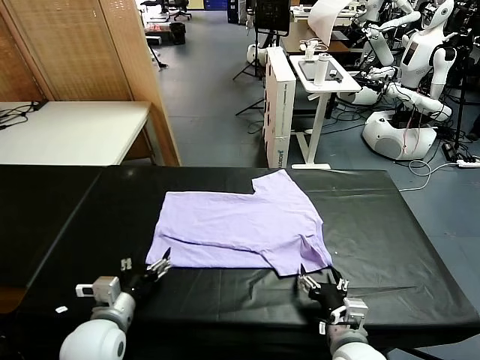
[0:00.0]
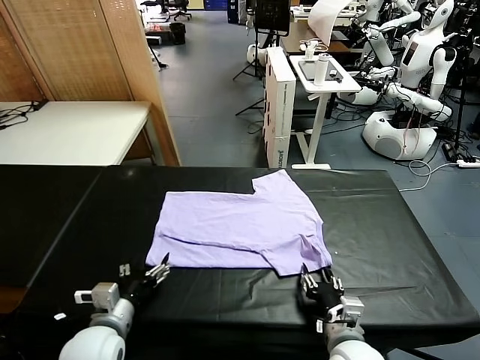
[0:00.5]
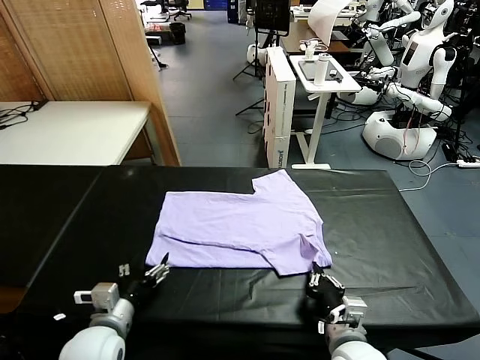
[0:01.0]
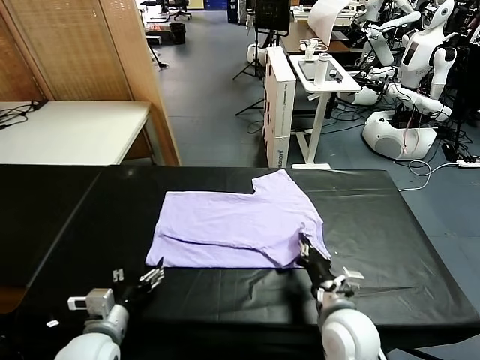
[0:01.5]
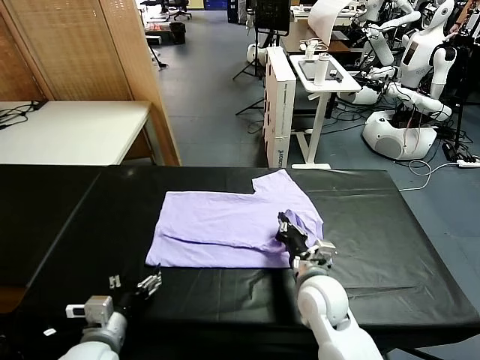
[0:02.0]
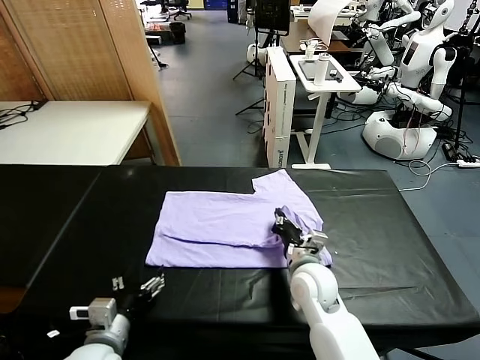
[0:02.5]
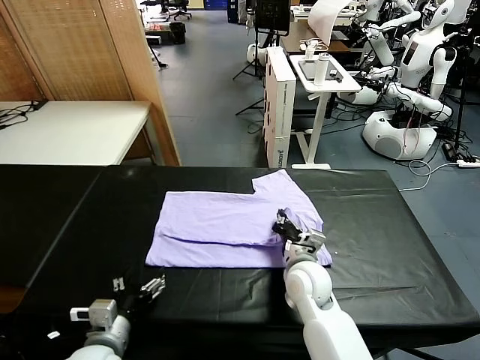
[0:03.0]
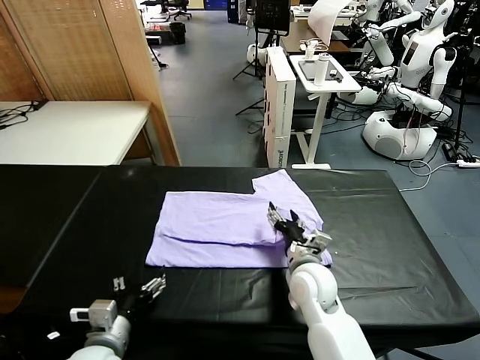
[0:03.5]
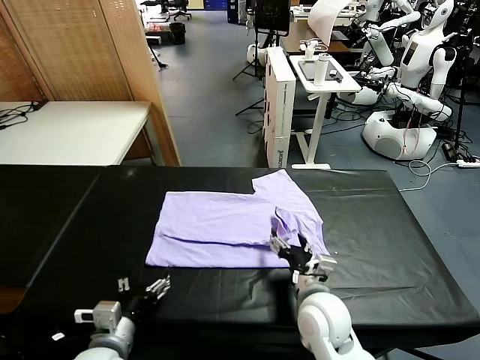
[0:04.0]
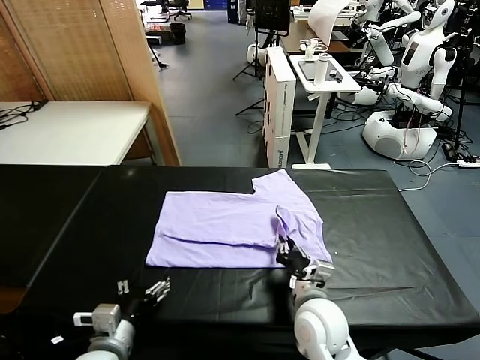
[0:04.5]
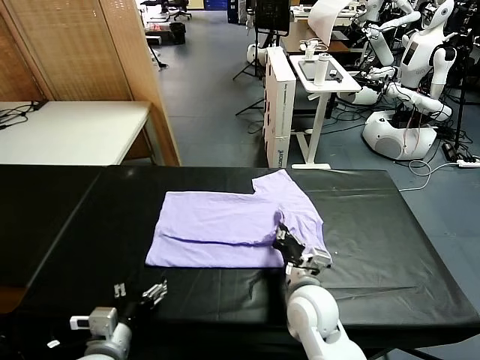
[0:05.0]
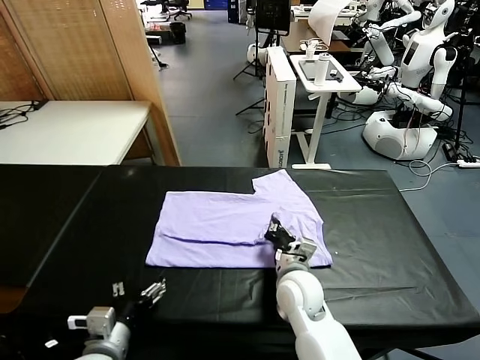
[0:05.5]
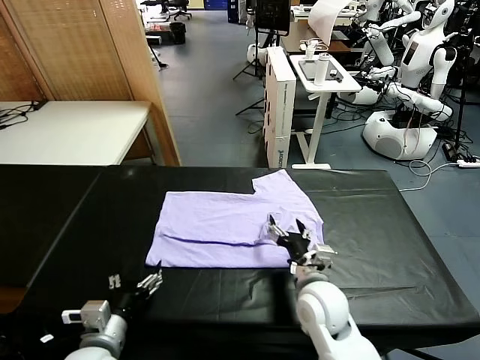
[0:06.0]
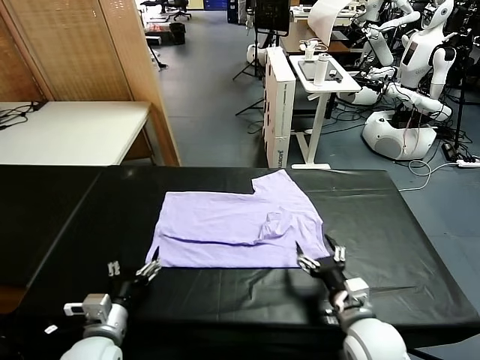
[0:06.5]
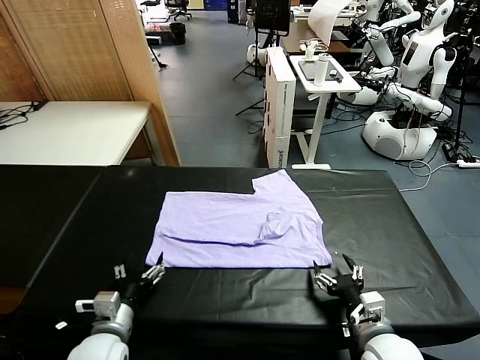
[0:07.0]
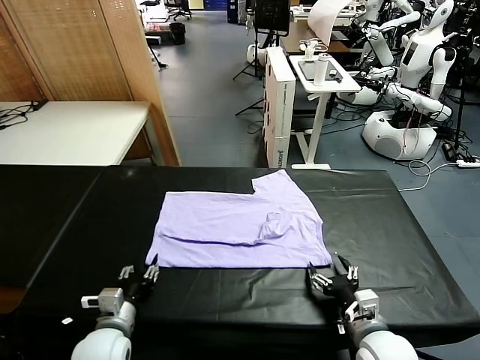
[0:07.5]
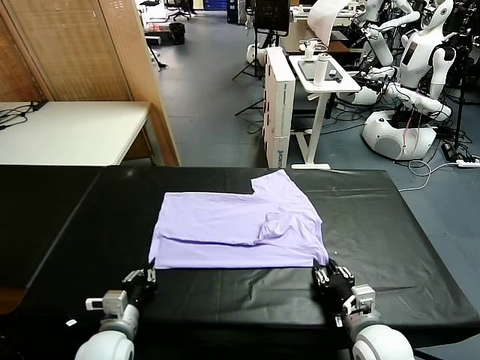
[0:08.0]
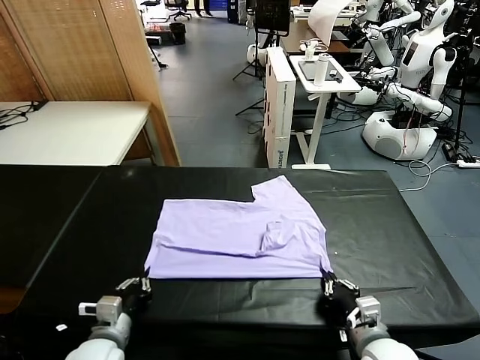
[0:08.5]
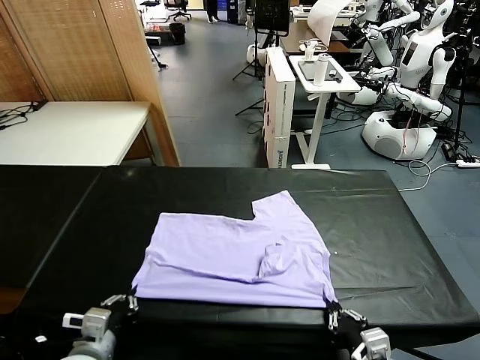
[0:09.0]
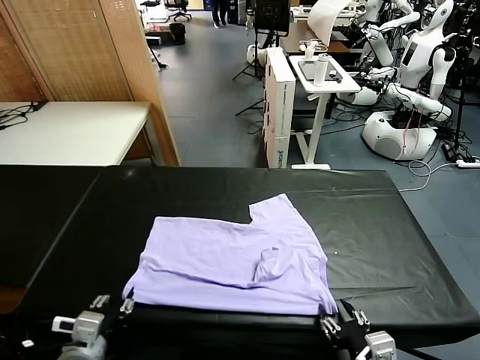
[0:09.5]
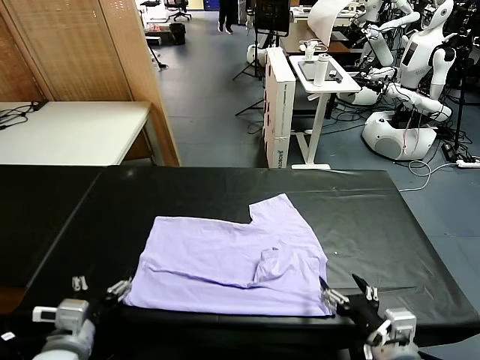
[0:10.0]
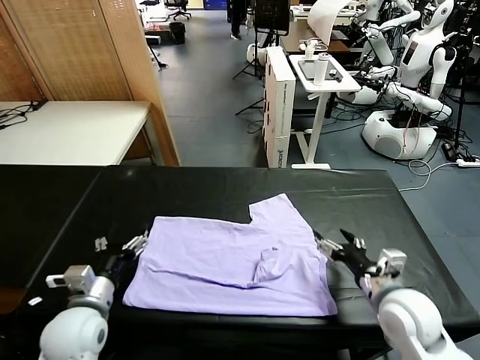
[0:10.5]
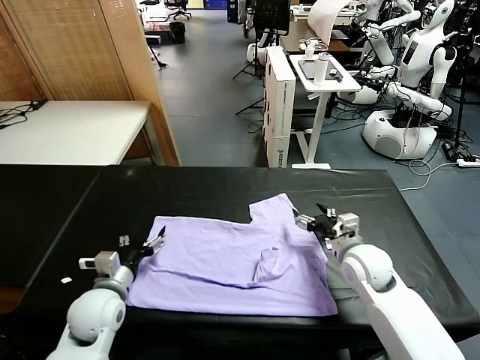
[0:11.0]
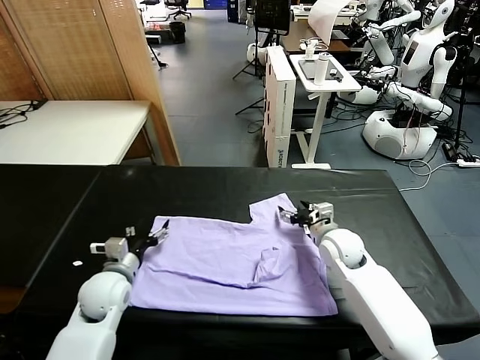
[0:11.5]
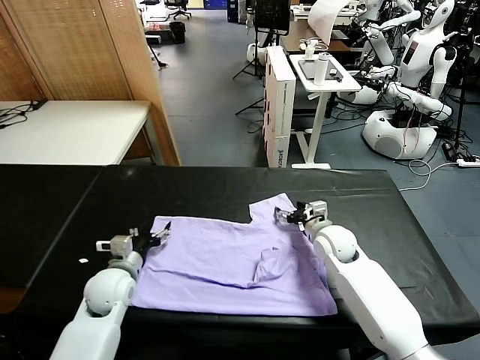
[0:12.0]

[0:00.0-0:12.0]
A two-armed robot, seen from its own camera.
Task of the whole recording: fold and organize the clothes.
Step, 0:00.0 to 0:06.0: use both grippers to drag the lower edge of the fabric forward and fold it over the upper edge.
Step, 0:06.5 to 0:09.5: Drag the clothes downward with both gripper.
0:00.0 to 0:02.0: The right gripper goes roughly 15 cm forward, and closes up.
0:02.0 to 0:04.0: The right gripper goes about 5 cm backward, and opens up.
0:04.0 to 0:06.0: The right gripper closes and opens again.
0:06.0 to 0:08.0: The left gripper moves downward, roughly 5 cm, and closes its fingers, while the right gripper travels to the right by roughly 5 cm, and closes its fingers.
0:08.0 to 0:10.0: The grippers both shift upward by approximately 10 cm. The right gripper travels backward and back again, roughly 10 cm each way, and opens its fingers. Meanwhile the left gripper opens its fingers.
0:10.0 to 0:12.0: The left gripper is displaced forward and downward by about 20 cm. Meanwhile the right gripper goes about 25 cm forward.

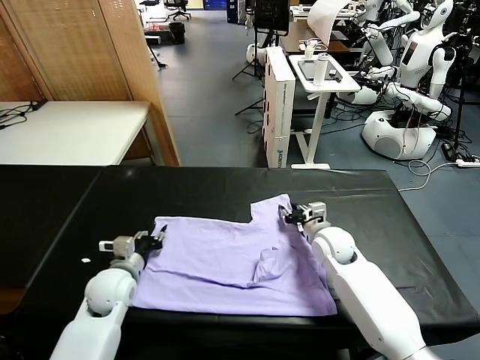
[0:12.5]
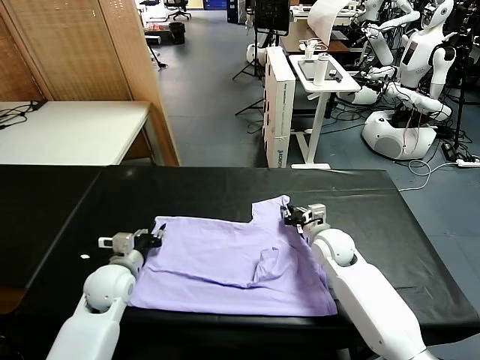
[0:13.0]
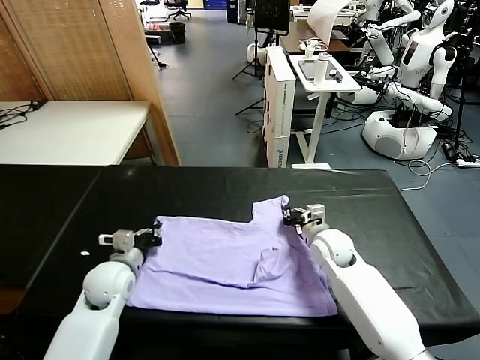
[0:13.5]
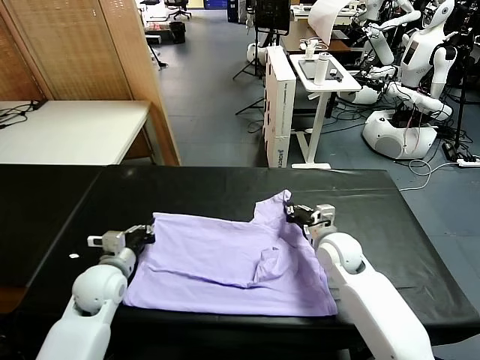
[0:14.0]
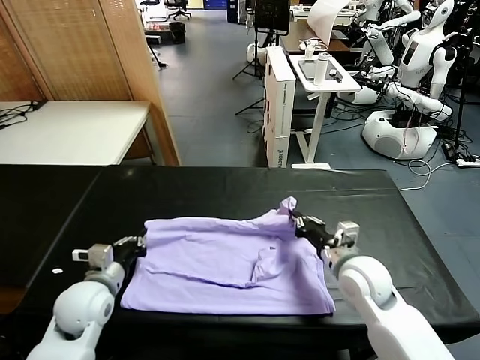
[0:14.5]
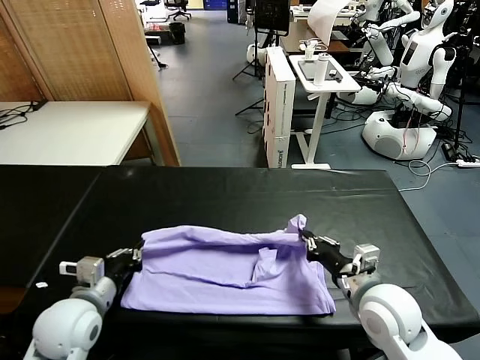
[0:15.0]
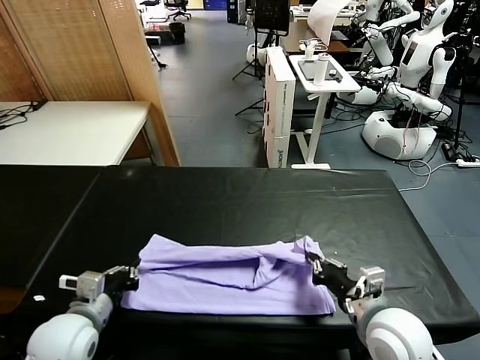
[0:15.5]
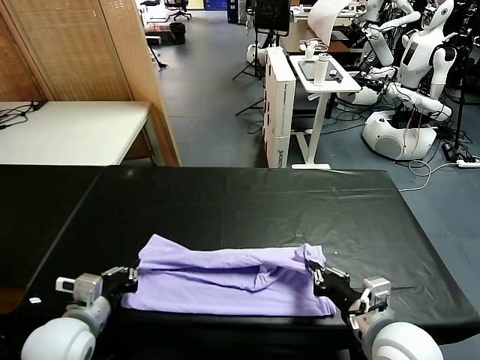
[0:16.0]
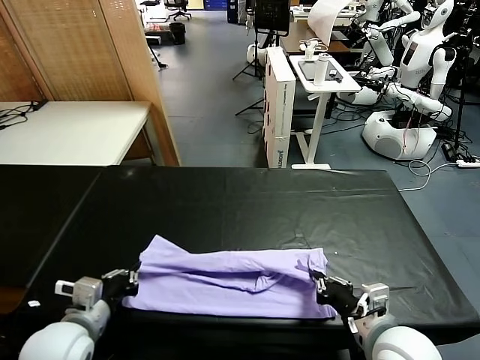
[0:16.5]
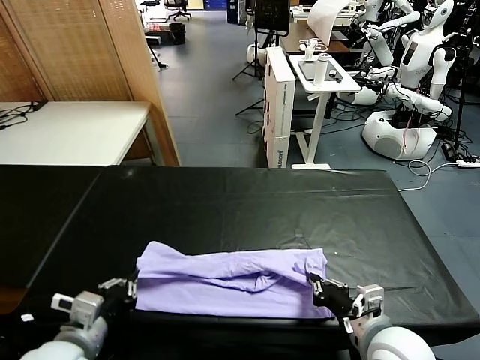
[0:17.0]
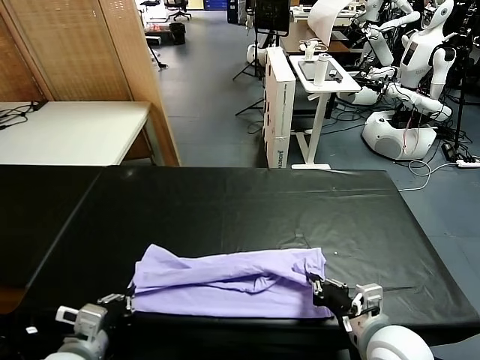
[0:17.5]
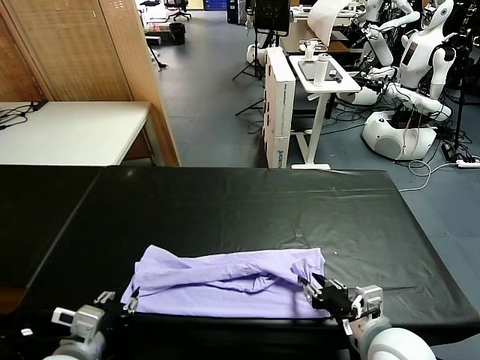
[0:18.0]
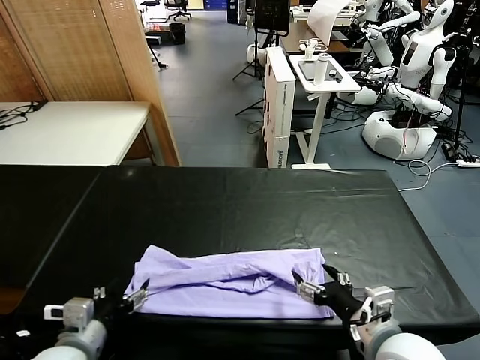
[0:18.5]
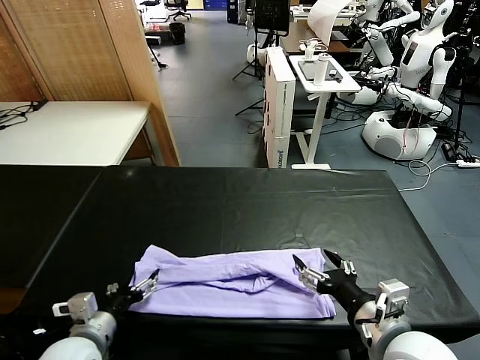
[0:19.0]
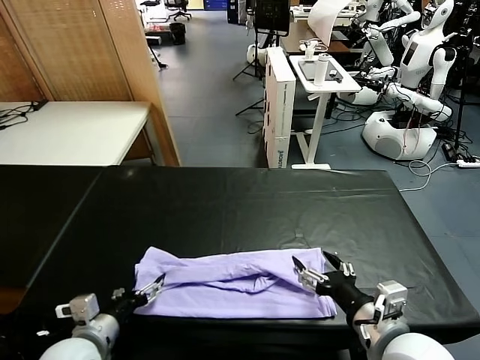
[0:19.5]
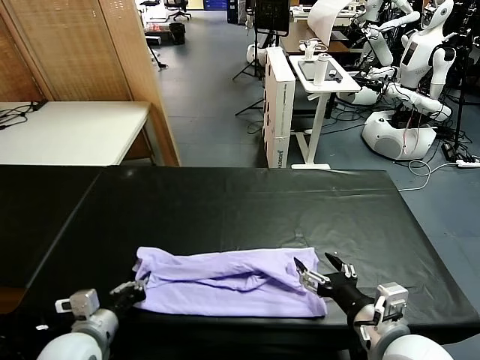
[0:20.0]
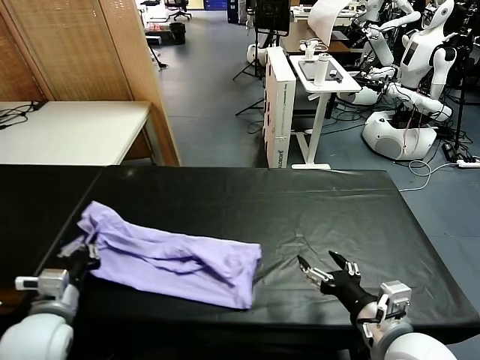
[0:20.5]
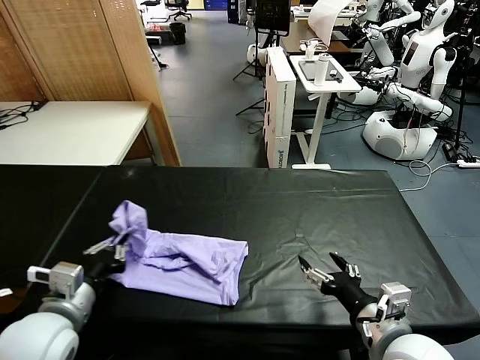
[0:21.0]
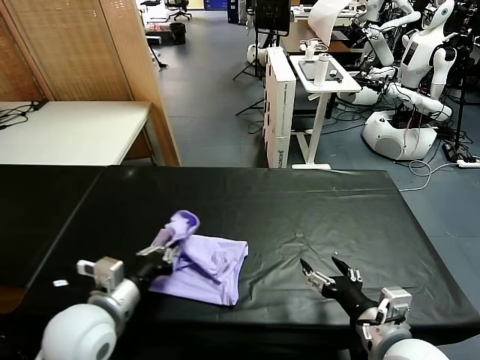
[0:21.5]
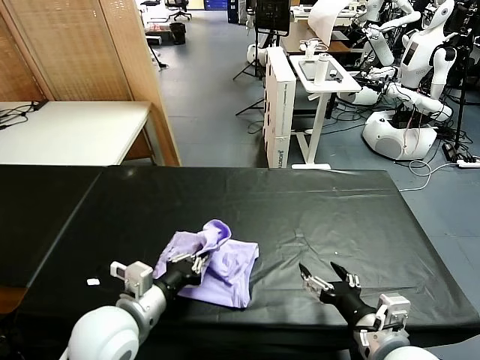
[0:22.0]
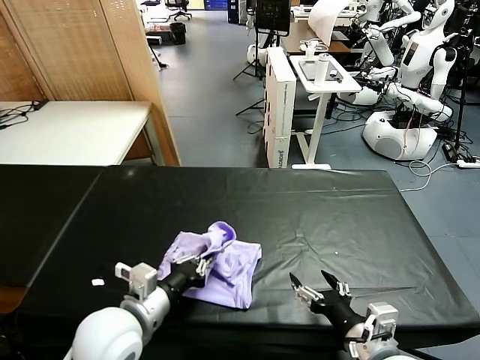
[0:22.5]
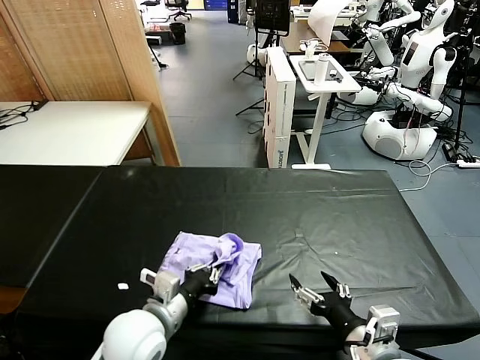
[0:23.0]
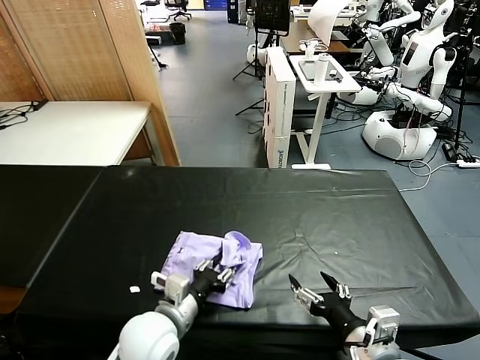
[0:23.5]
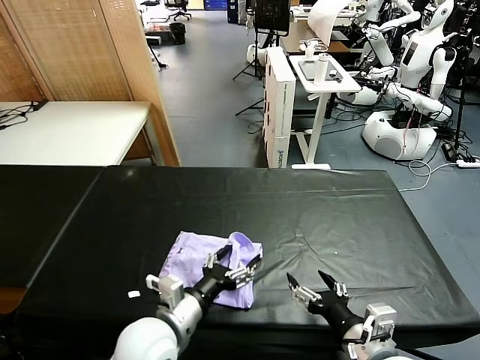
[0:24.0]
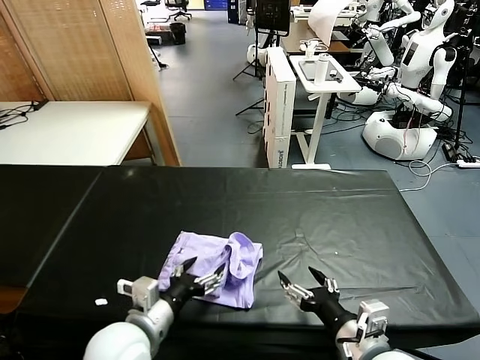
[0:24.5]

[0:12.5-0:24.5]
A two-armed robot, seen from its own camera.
Task of the whole recording: fold and organize the clothes.
Step, 0:14.0 to 0:18.0: use both grippers to drag the upper edge of the fabric backward and fold it over the lower edge.
Step, 0:18.5 to 0:20.0: use the left gripper to clamp the left edge of the fabric.
0:12.5 to 0:14.5: The left gripper heads backward, covering about 5 cm, and closes, while the right gripper is displaced backward and upward by approximately 15 cm, and closes.
0:14.5 to 0:16.5: Both grippers move backward, some 10 cm.
0:16.5 to 0:18.5: The left gripper opens its fingers. Meanwhile the right gripper opens its fingers.
0:18.5 to 0:20.5: The left gripper shifts about 5 cm to the left, and closes up.
0:20.5 to 0:22.5: The left gripper moves to the right, approximately 15 cm.
0:22.5 to 0:24.5: The left gripper opens.

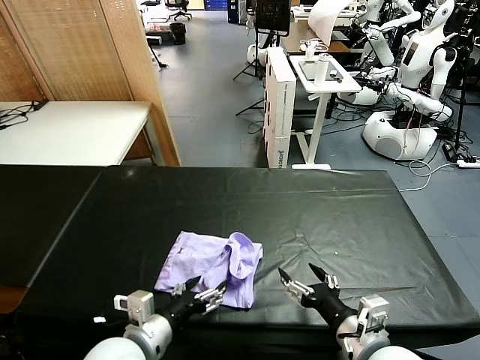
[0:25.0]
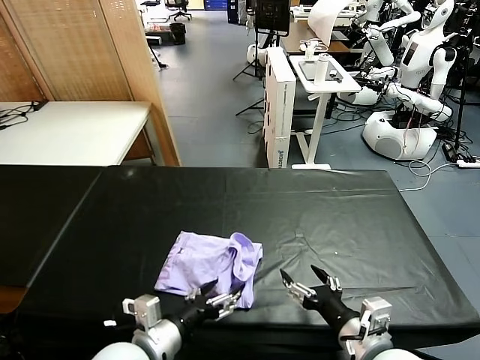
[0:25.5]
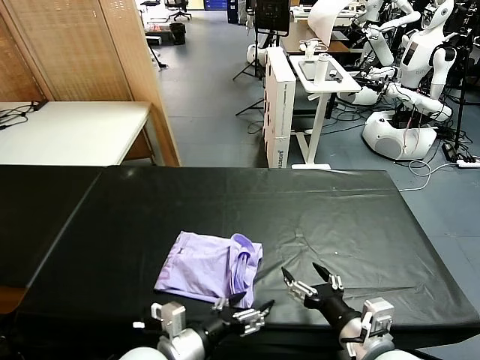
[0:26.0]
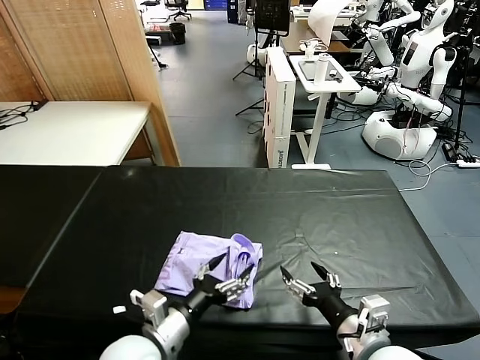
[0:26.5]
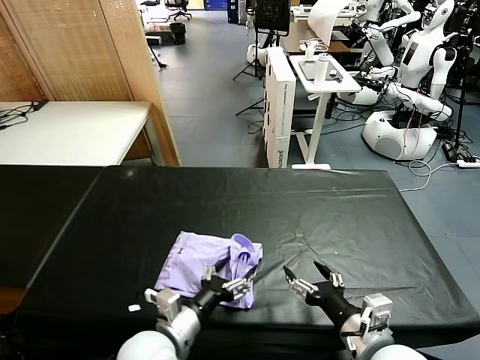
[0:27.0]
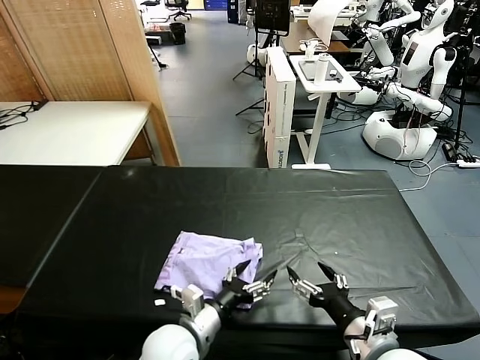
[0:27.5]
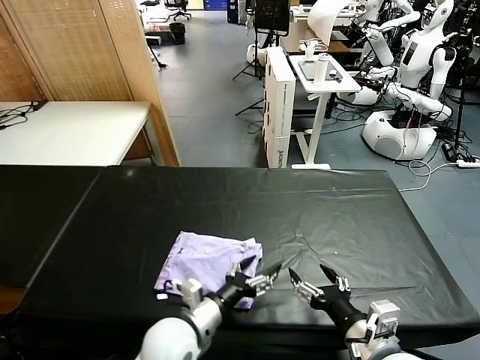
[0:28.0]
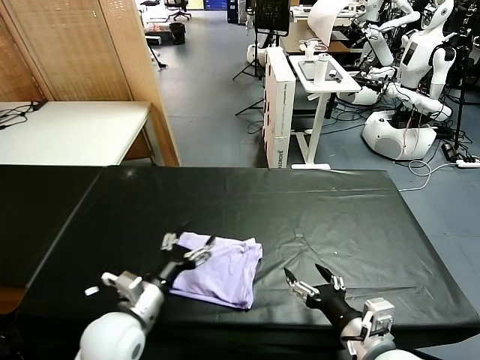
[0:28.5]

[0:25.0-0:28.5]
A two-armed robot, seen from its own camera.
Task of the whole recording: fold and organize the clothes.
Step, 0:25.0 to 0:28.0: use the left gripper to drag the left edge of the fabric to the left and folds it over the right edge.
0:25.0 to 0:27.0: The left gripper shifts by roughly 5 cm.
0:27.0 to 0:28.5: The left gripper moves to the left, some 5 cm.
